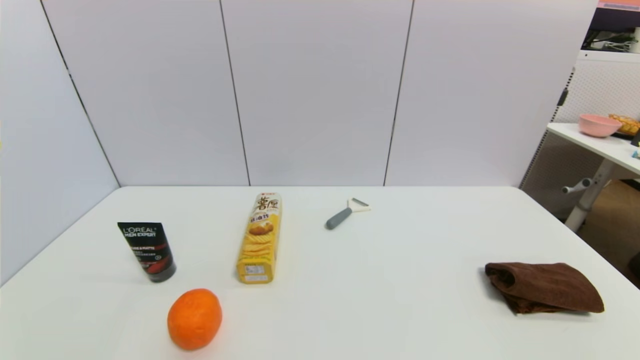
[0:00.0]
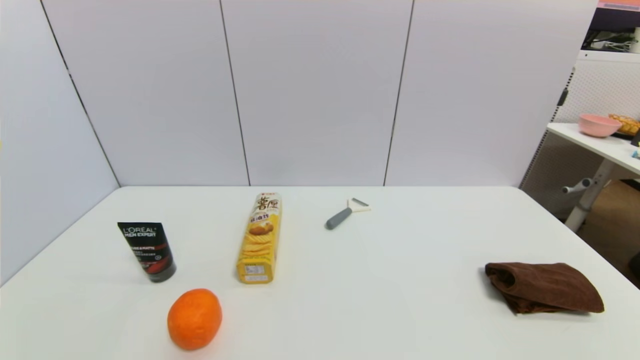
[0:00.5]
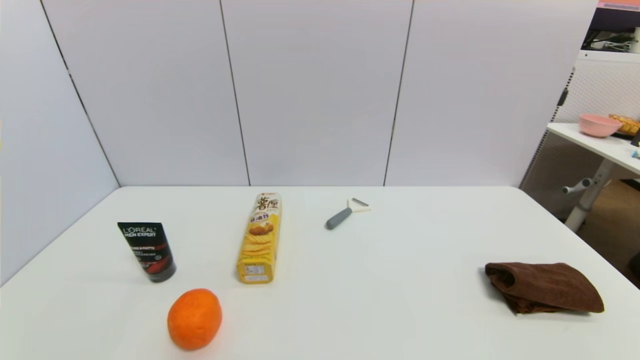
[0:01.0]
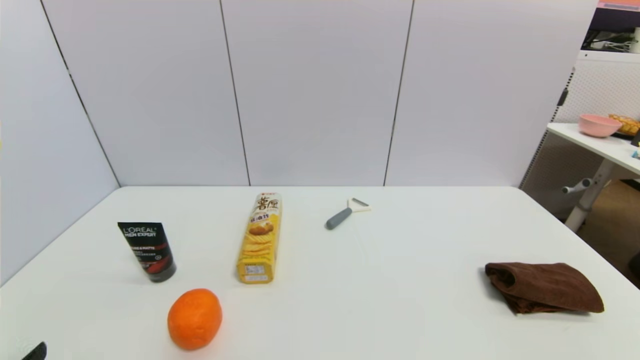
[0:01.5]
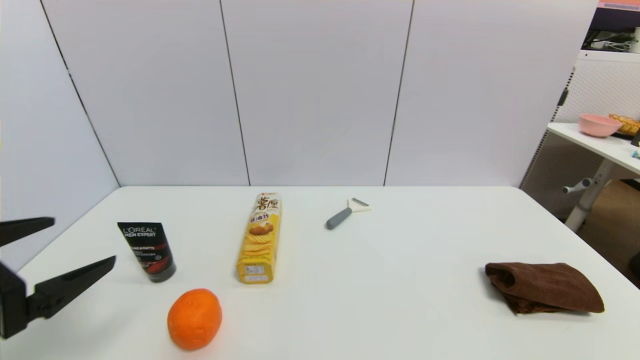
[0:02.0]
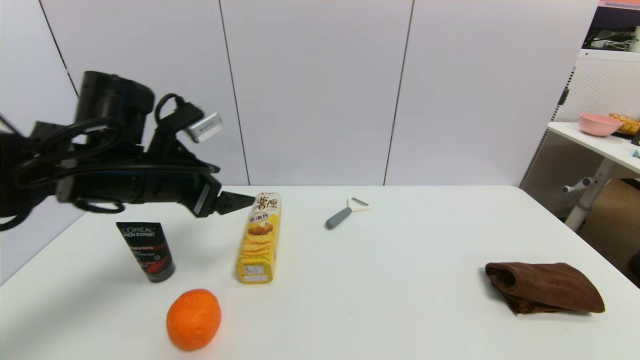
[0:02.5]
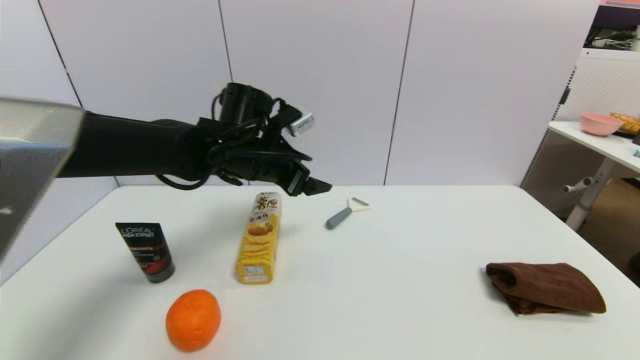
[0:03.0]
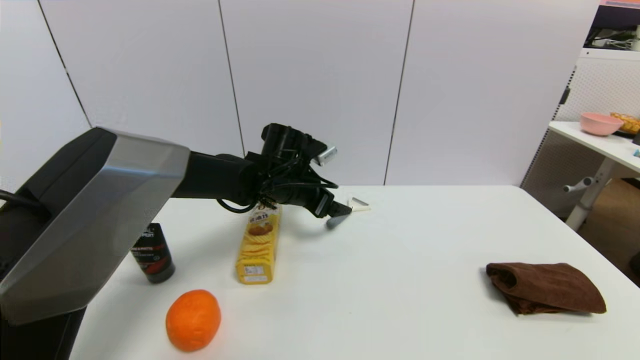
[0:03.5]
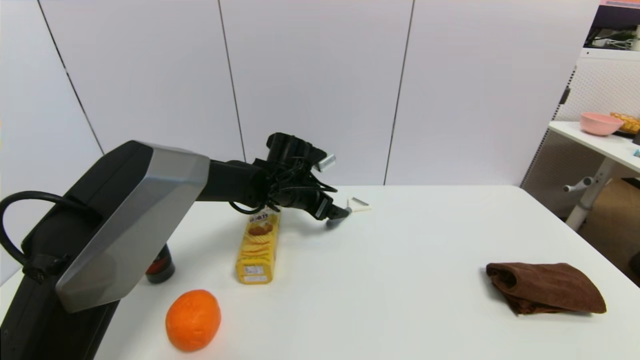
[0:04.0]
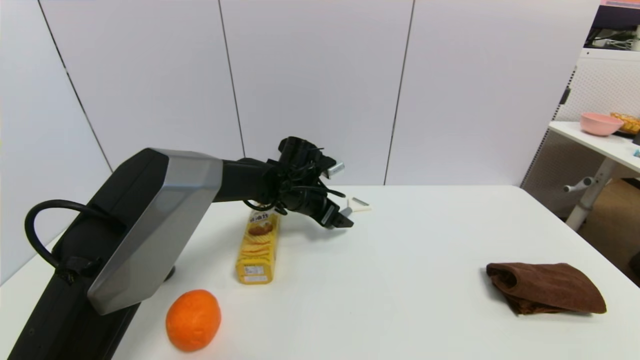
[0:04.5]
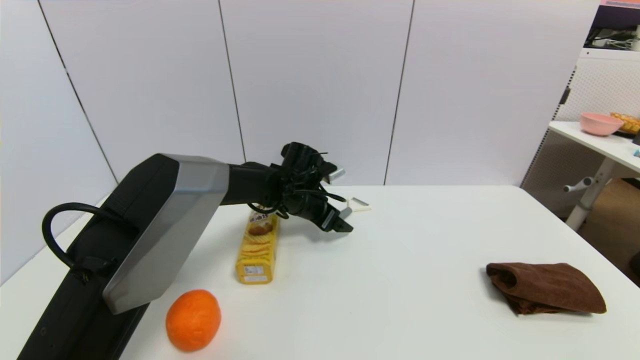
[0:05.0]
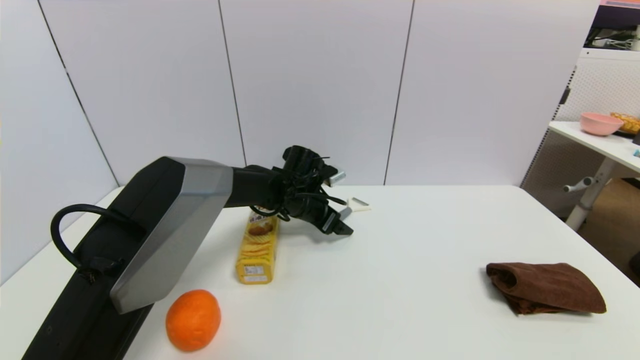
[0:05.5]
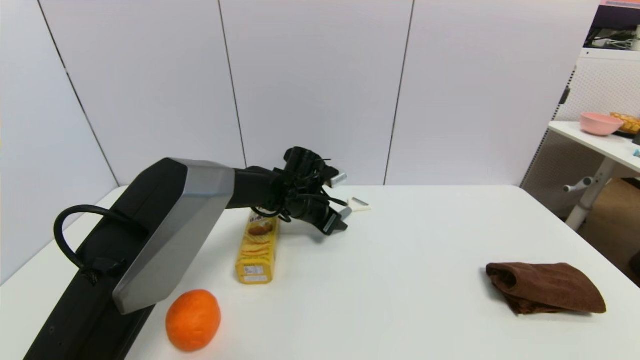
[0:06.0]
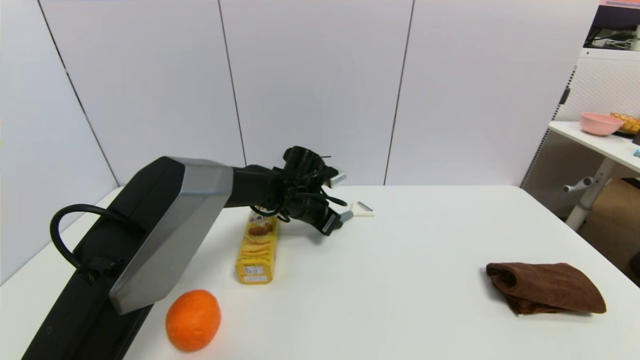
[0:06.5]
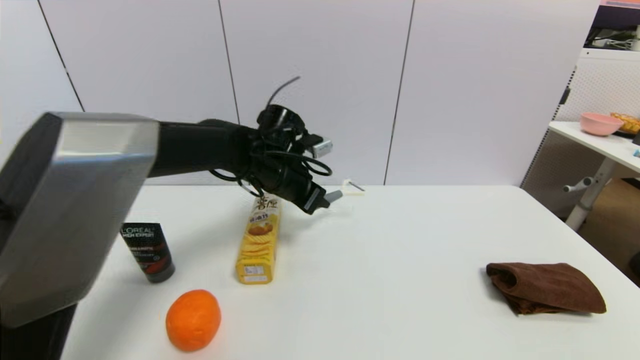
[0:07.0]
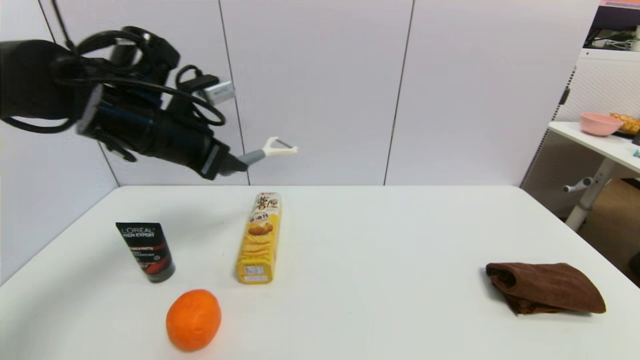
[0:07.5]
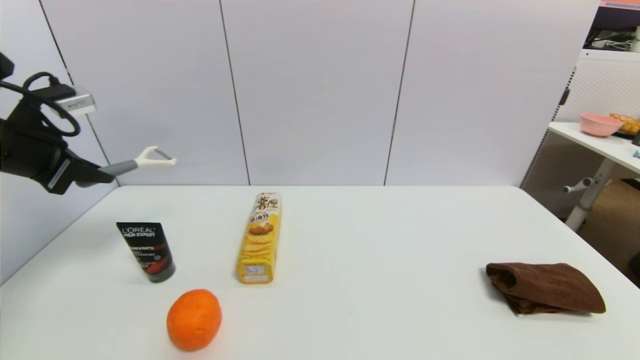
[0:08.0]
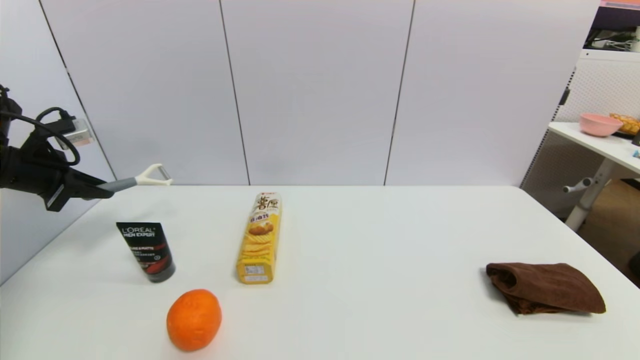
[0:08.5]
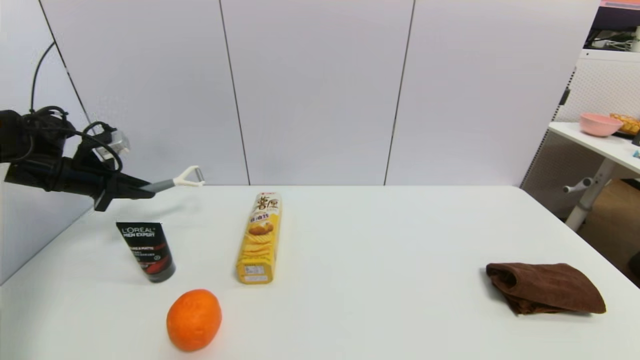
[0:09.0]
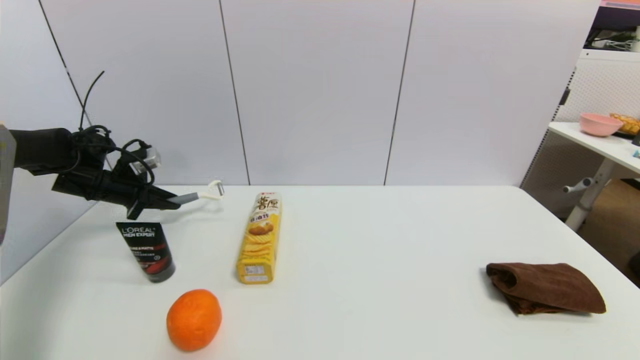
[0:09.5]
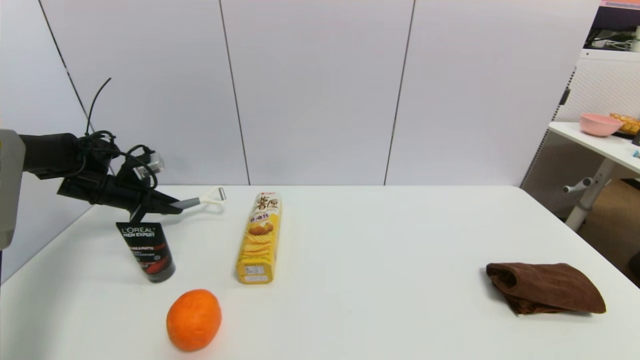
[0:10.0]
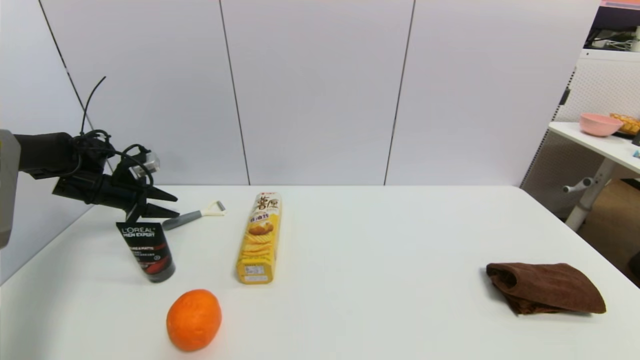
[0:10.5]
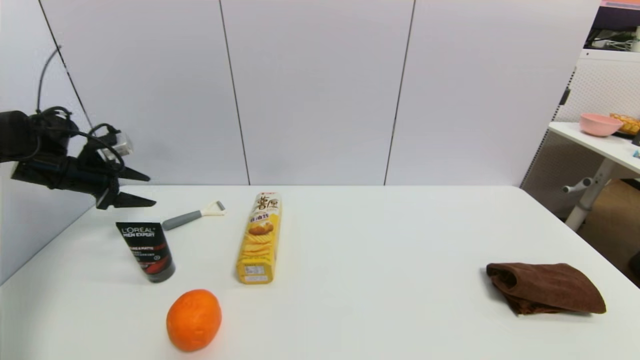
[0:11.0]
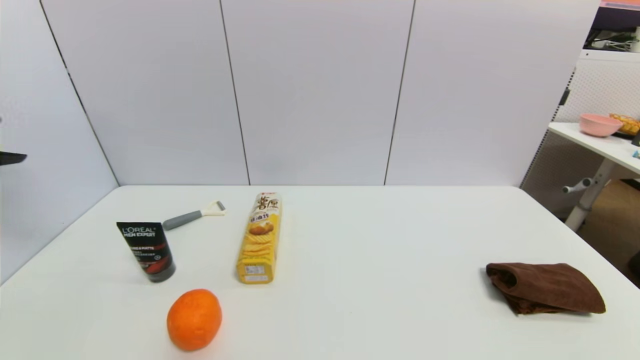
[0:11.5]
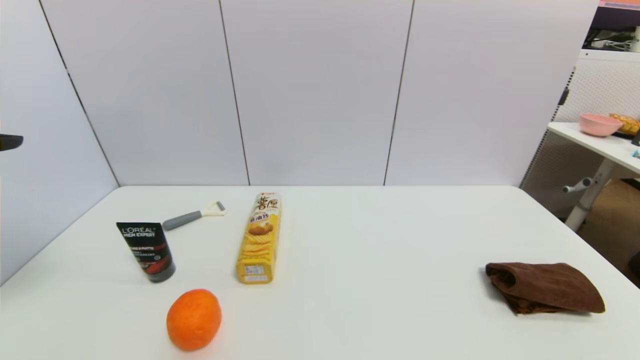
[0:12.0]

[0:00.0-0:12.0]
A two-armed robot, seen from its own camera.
Step, 0:02.0 to 0:06.5: Grasp the peeler with left gripper.
Step, 0:07.0 to 0:10.5: Place the peeler on the table with left gripper.
0:00.0 to 0:02.0: The left gripper moves upward and forward, roughly 20 cm.
0:02.0 to 0:04.0: The left gripper travels forward and to the right by approximately 40 cm.
0:04.0 to 0:06.0: The left gripper closes its fingers.
0:06.0 to 0:08.0: The left gripper goes some 40 cm to the left, upward and backward, and closes.
0:08.0 to 0:10.0: The left gripper shifts approximately 20 cm downward and forward.
0:10.0 to 0:12.0: The left gripper travels backward and upward by about 35 cm, and opens its fingers.

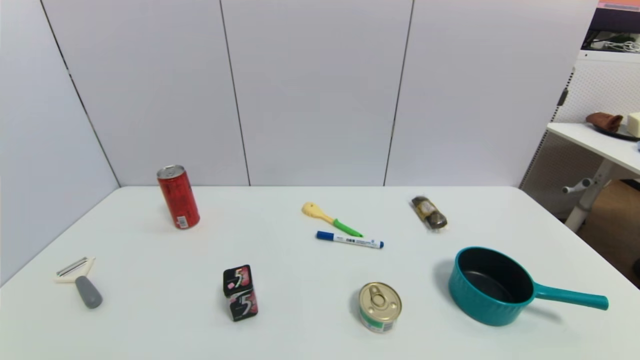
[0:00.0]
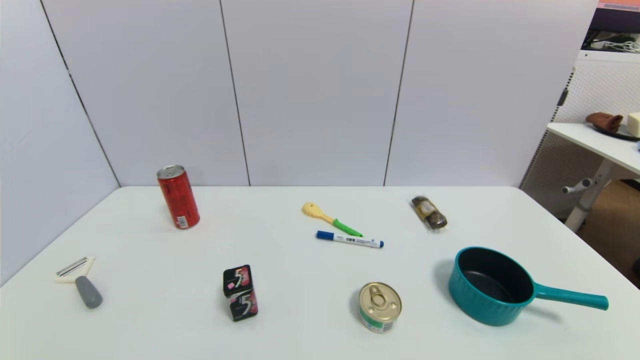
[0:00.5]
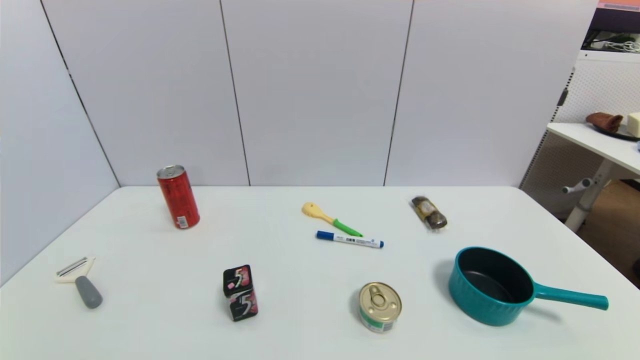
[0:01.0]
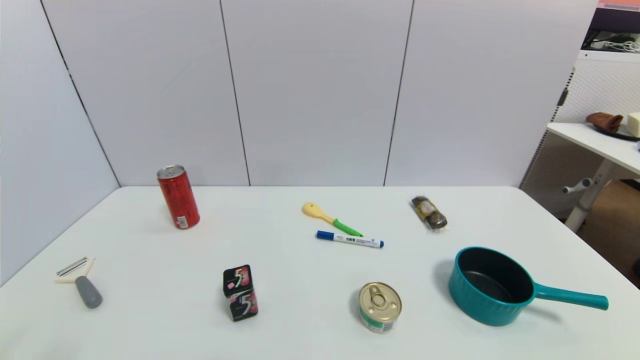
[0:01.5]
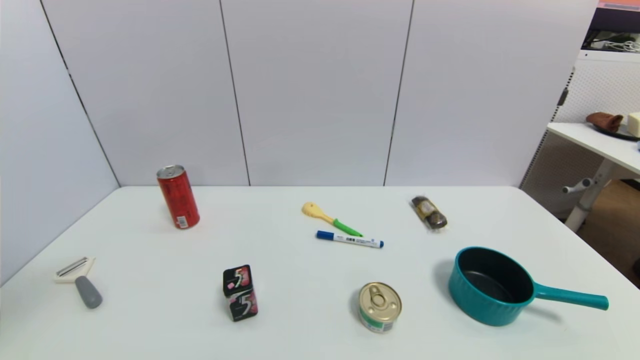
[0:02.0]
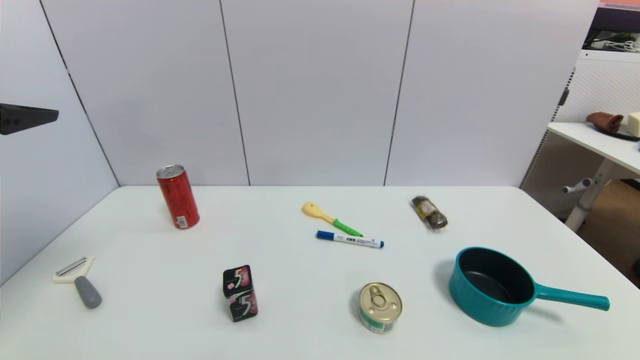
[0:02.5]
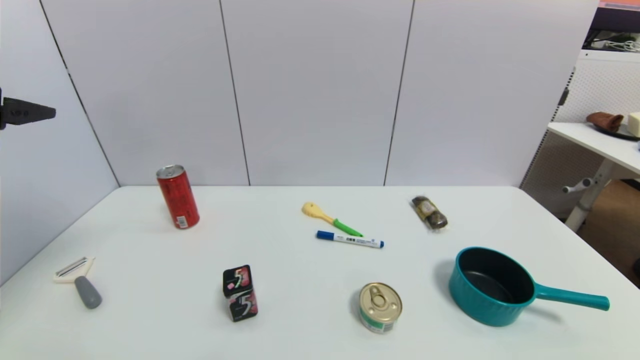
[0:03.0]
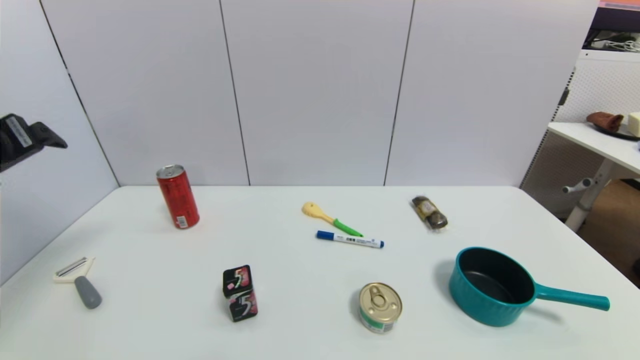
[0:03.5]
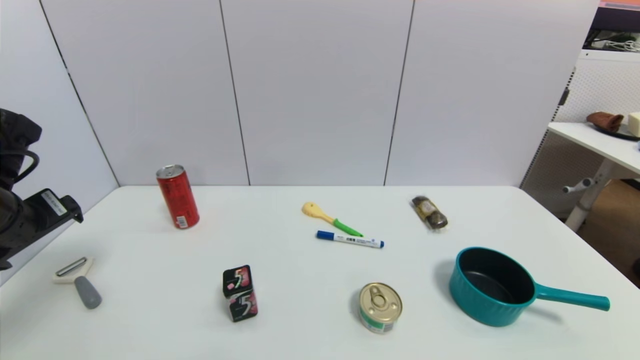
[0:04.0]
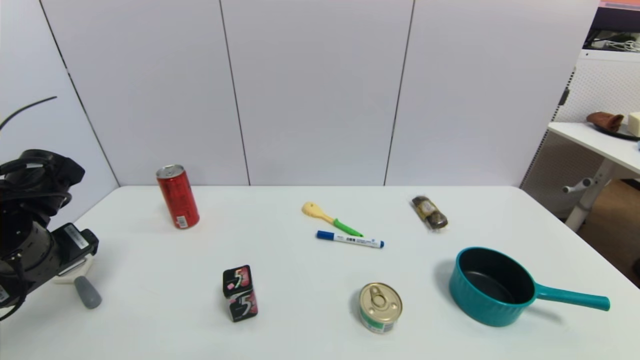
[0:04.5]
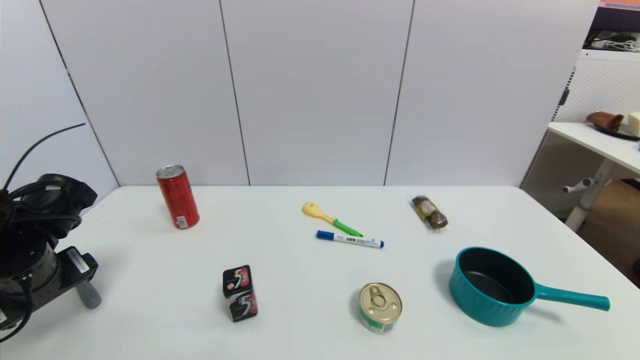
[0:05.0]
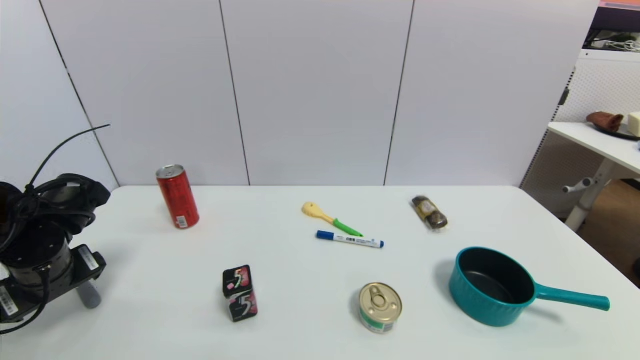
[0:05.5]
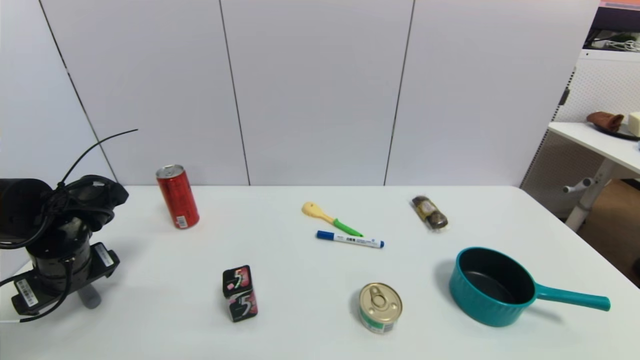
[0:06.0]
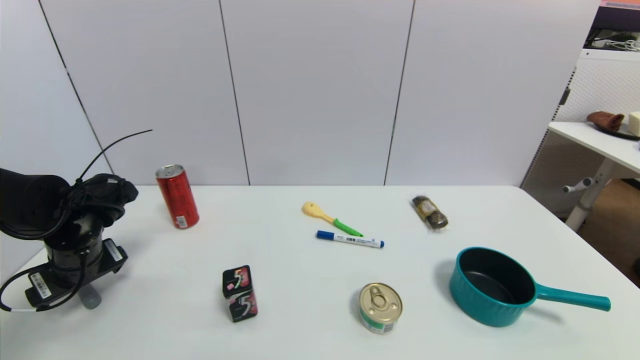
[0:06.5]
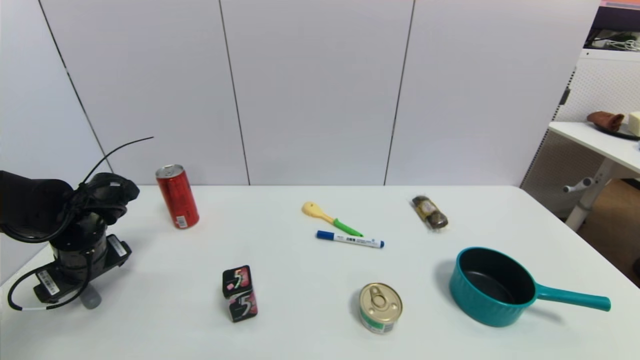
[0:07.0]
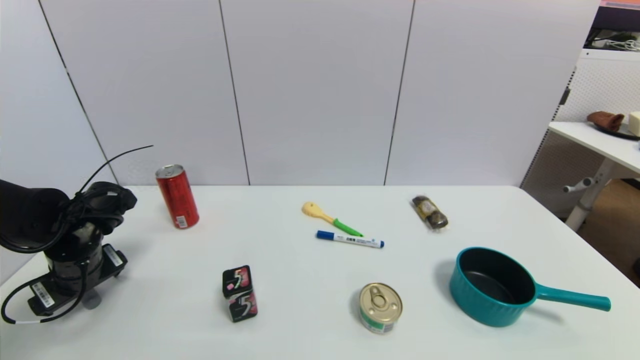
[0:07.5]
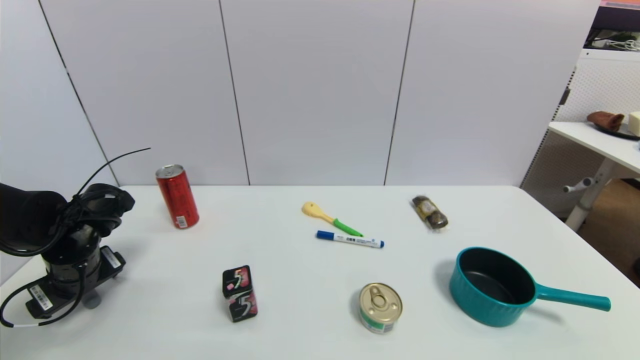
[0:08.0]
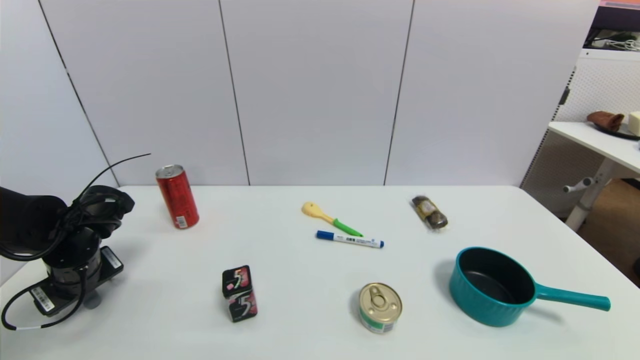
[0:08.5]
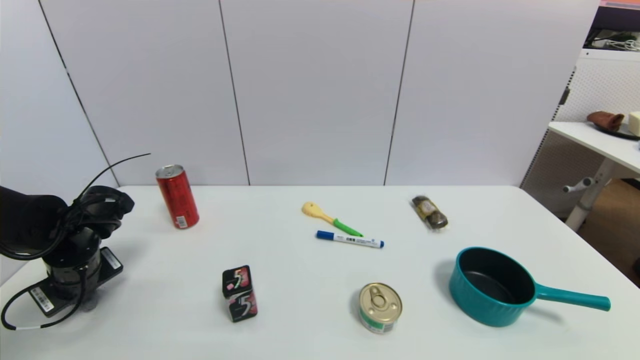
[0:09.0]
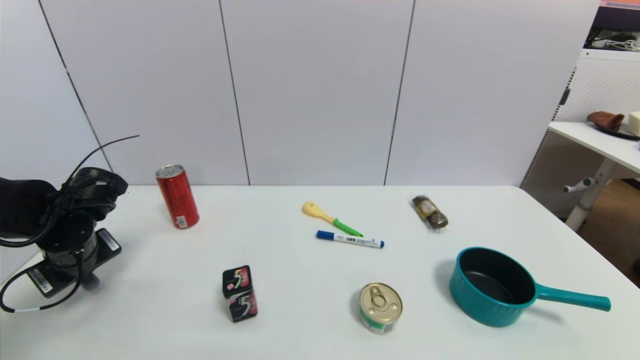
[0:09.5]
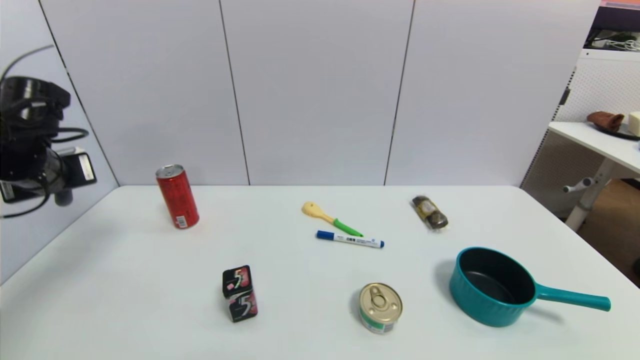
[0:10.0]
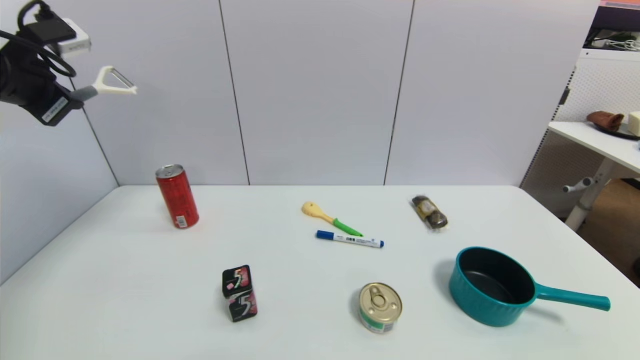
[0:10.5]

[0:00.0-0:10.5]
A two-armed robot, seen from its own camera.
Step, 0:01.5 to 0:09.5: Grasp the peeler with left gripper.
0:00.0 to 0:02.0: The left gripper moves upward and forward, about 30 cm.
0:02.0 to 0:04.0: The left gripper travels downward and forward by about 20 cm.
0:04.0 to 0:06.5: The left gripper travels downward by about 10 cm.
0:06.5 to 0:08.5: The grippers move only a little.
0:08.5 to 0:10.5: The left gripper heads upward, covering roughly 25 cm, and closes.
